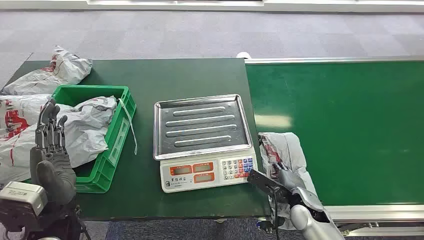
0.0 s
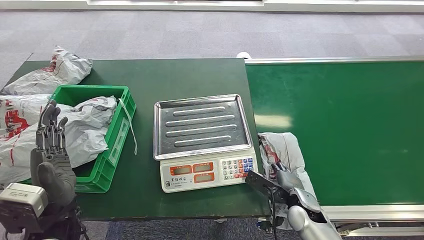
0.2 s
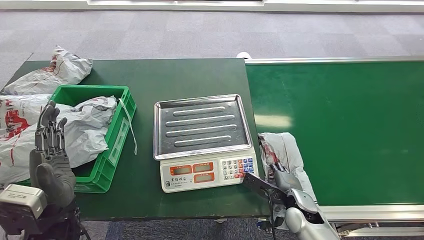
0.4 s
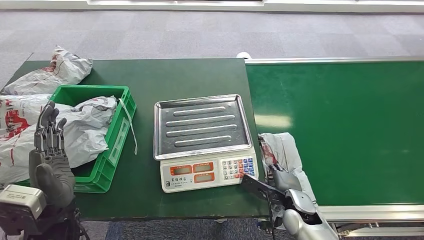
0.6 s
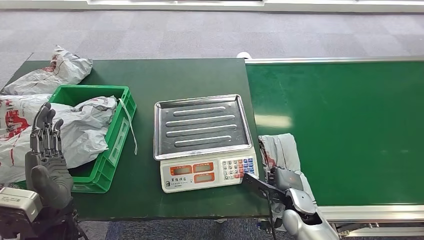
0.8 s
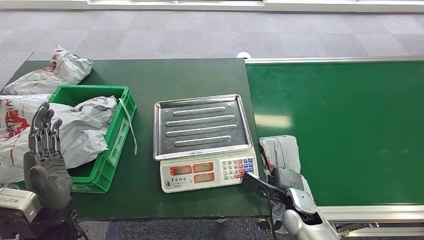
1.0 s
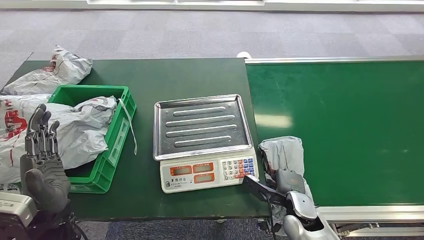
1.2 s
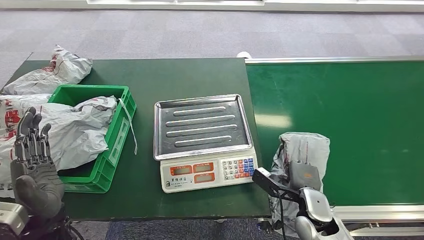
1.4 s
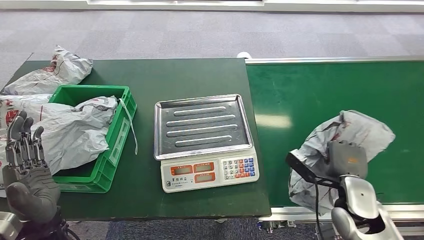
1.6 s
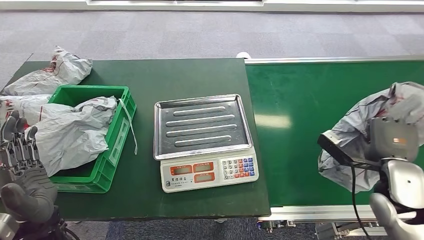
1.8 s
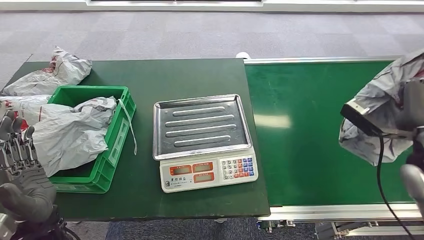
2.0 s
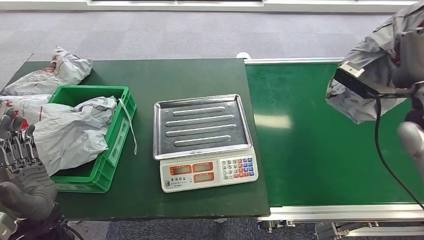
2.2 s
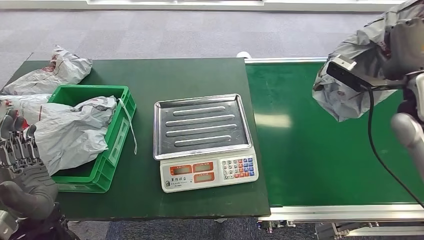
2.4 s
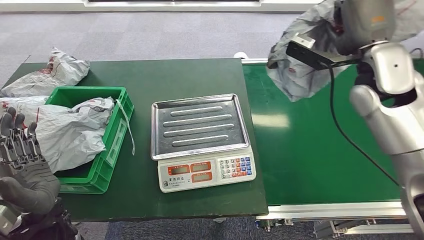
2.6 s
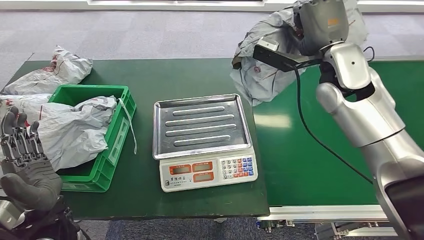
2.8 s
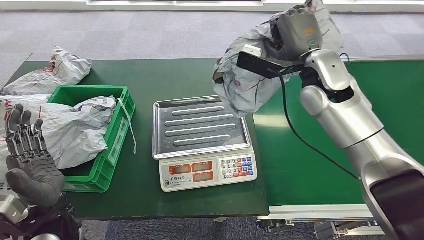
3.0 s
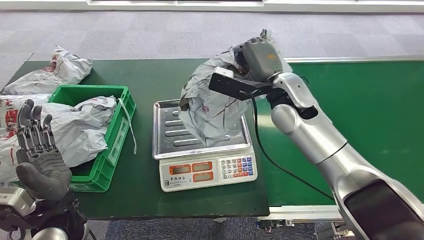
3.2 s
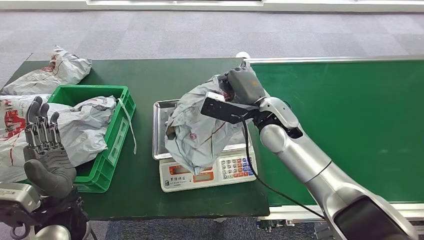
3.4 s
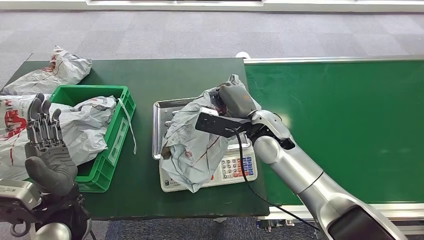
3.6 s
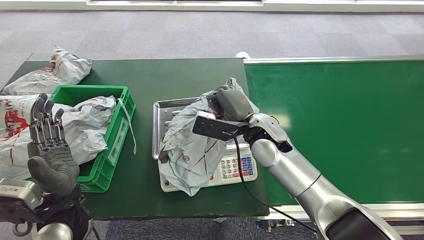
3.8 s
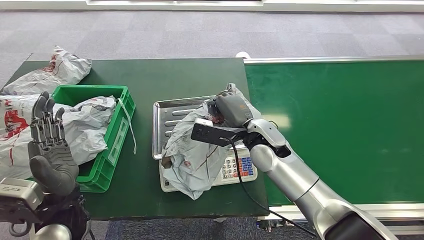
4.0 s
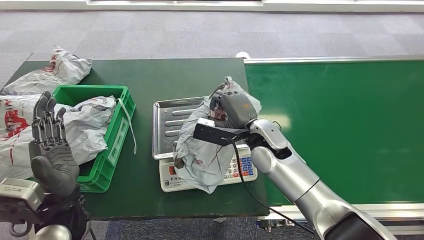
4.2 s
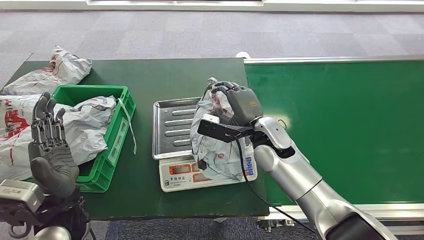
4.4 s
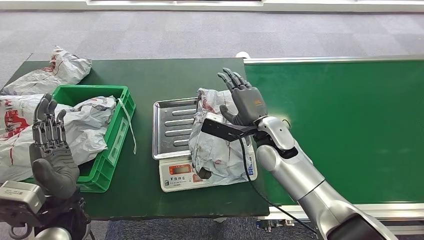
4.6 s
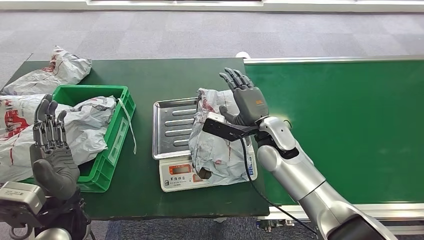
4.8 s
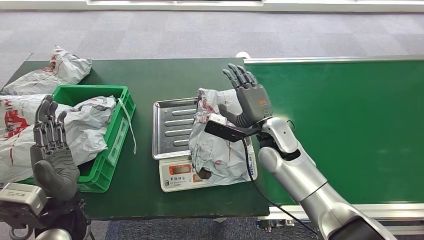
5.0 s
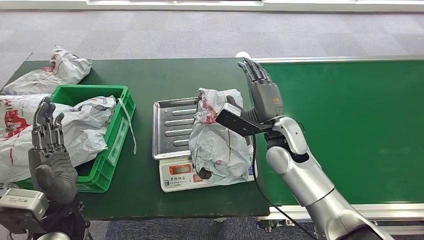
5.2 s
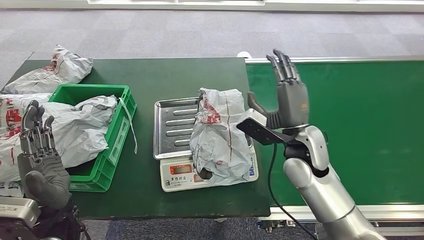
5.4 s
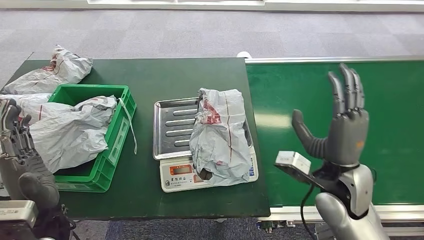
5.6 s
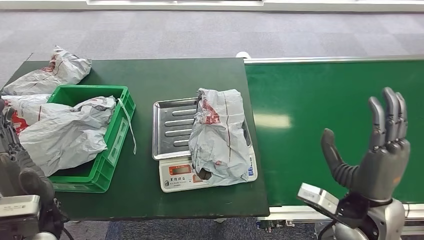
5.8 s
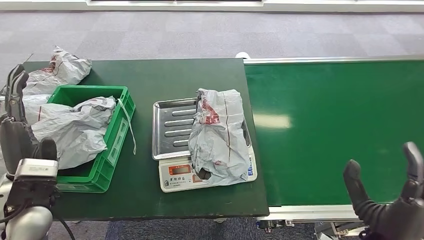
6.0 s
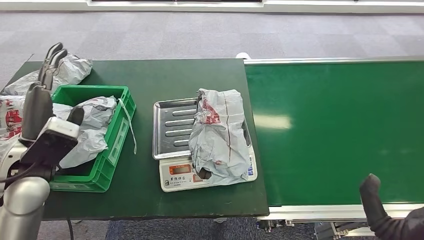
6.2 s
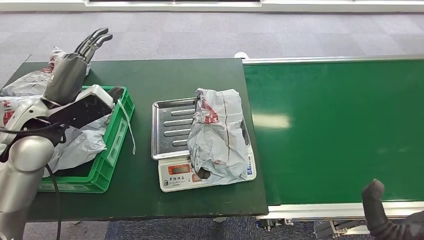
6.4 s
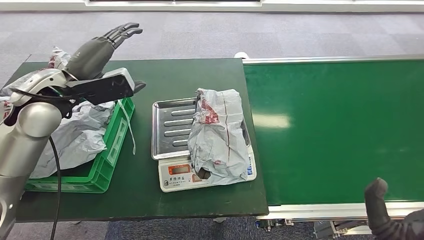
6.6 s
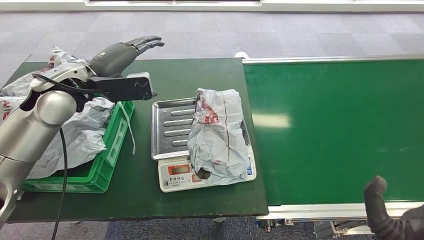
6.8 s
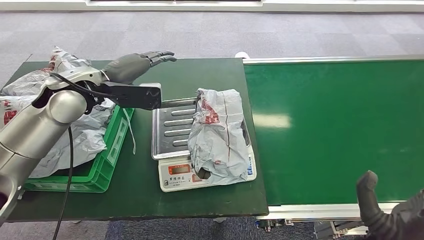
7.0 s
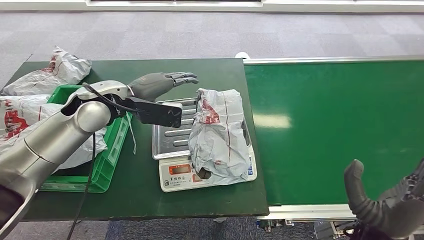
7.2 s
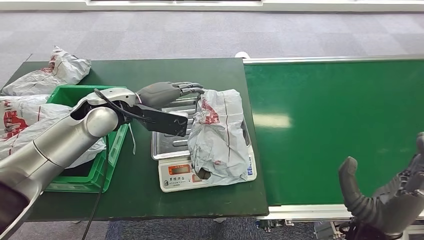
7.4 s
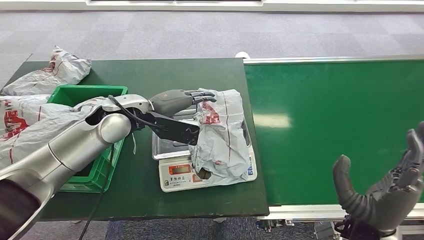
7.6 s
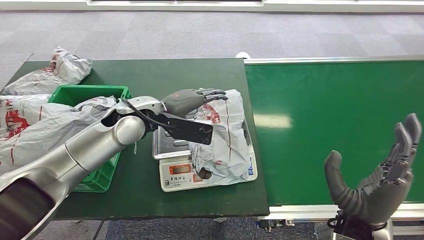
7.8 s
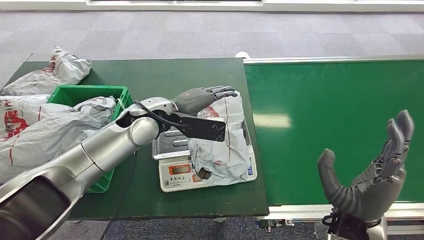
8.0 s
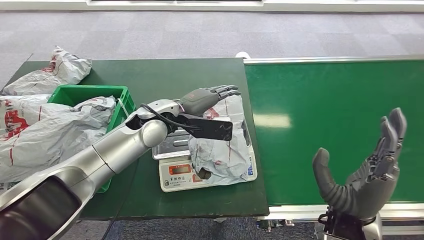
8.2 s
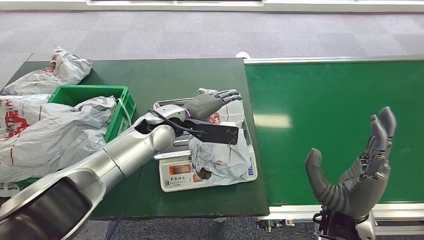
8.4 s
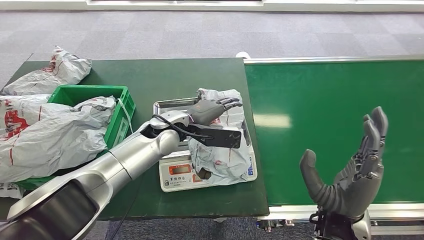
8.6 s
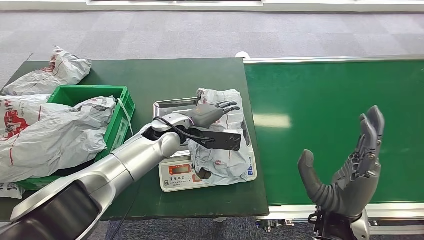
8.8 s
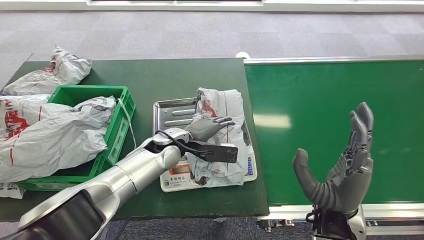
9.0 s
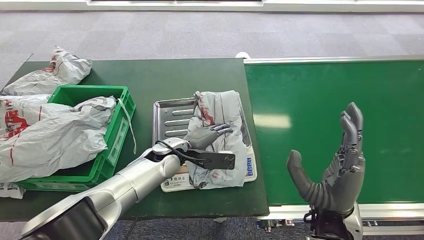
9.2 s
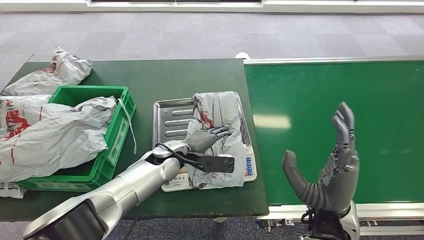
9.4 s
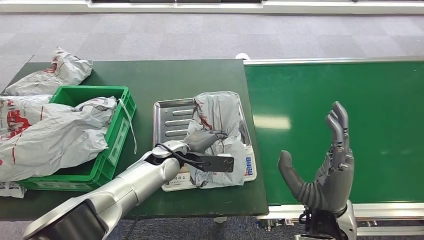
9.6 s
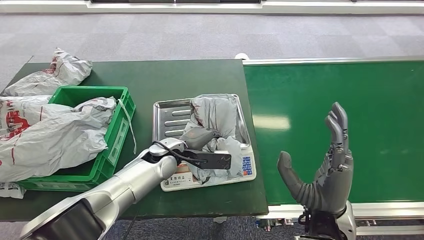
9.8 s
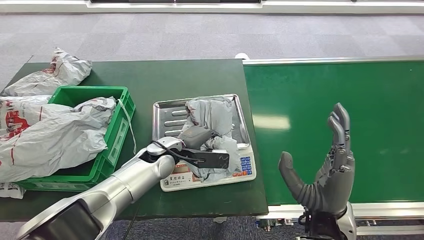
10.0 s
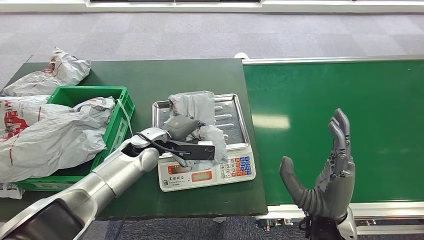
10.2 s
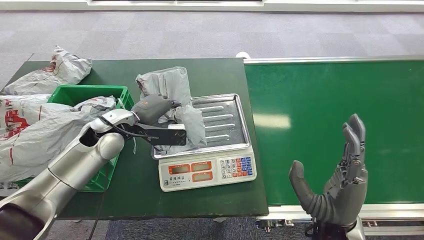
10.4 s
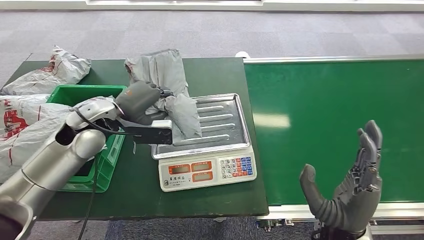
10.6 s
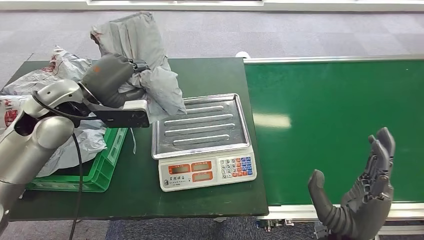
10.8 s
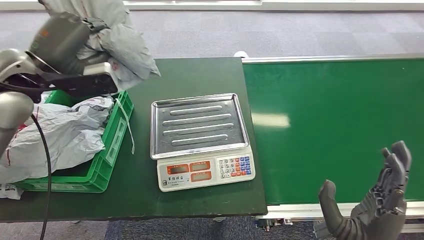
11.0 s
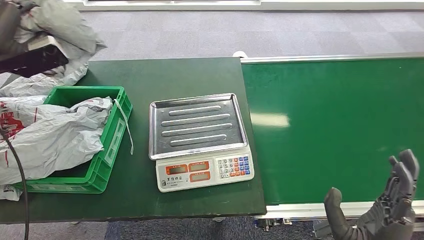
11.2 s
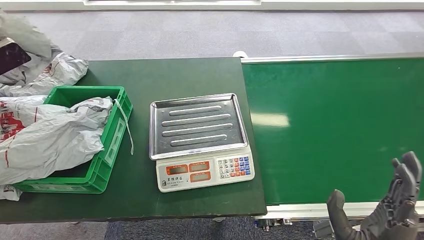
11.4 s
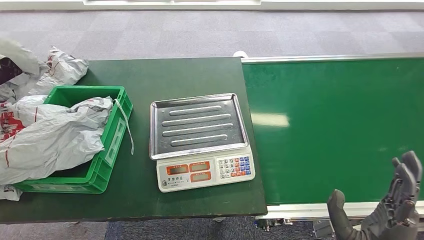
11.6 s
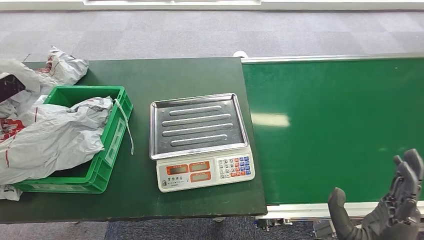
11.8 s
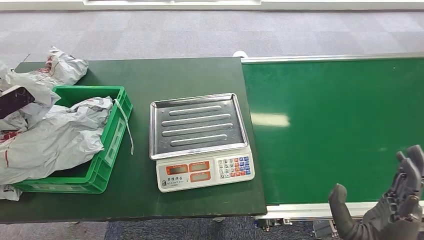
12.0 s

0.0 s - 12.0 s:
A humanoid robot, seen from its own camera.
Step, 0.0 s - 2.2 s: Pick up the package from the conveyor belt.
Step, 2.4 s - 6.4 s: Place the package onto the inbound machine.
Step, 6.8 s - 11.2 s: Pick up the package from the inbound machine.
6.0 s - 7.6 s: The left hand is displaced forward and to the right by roughly 20 cm.

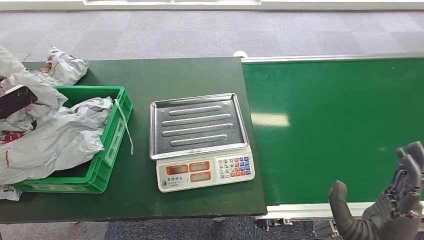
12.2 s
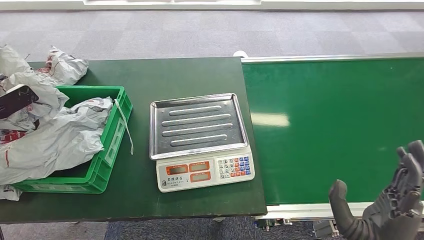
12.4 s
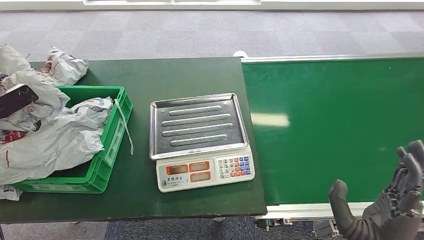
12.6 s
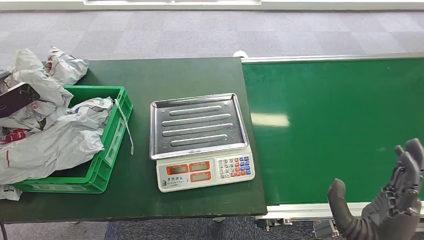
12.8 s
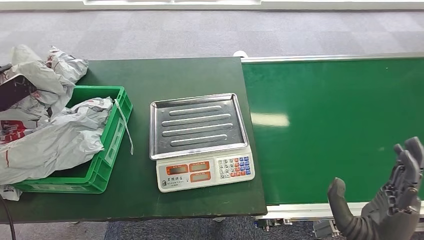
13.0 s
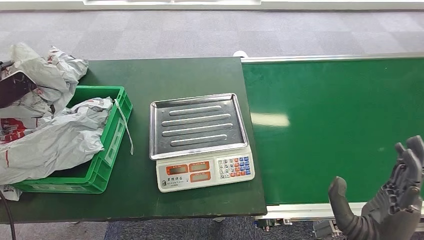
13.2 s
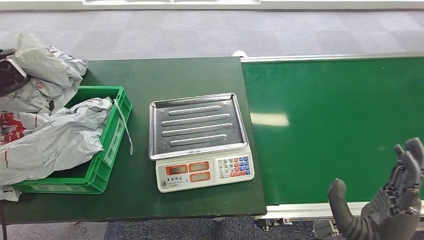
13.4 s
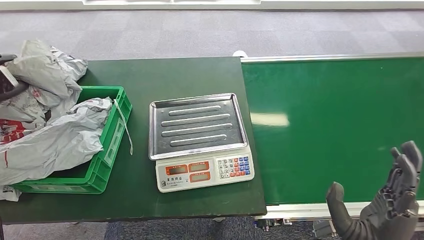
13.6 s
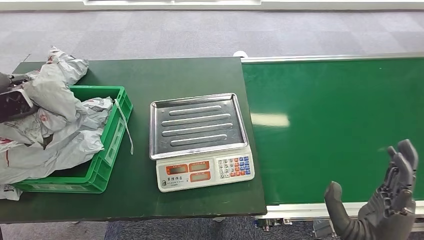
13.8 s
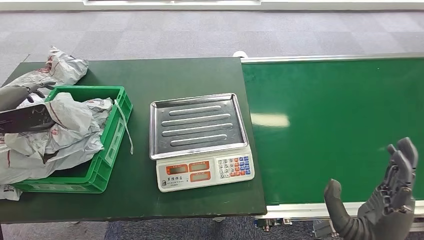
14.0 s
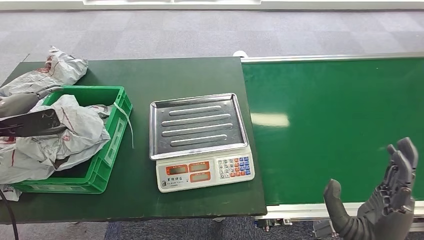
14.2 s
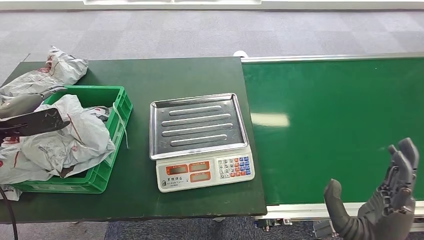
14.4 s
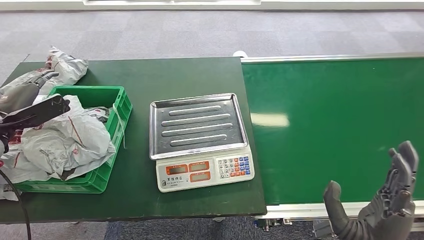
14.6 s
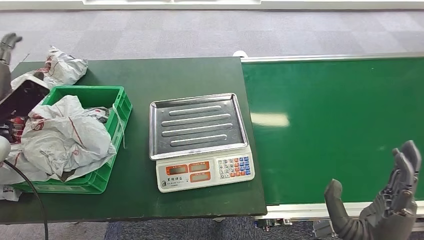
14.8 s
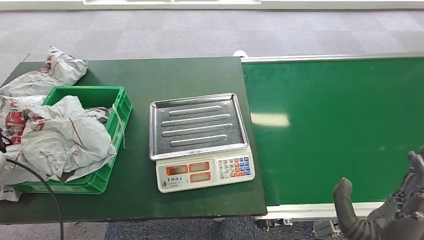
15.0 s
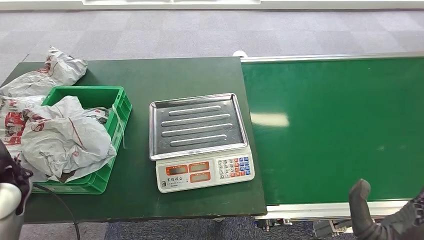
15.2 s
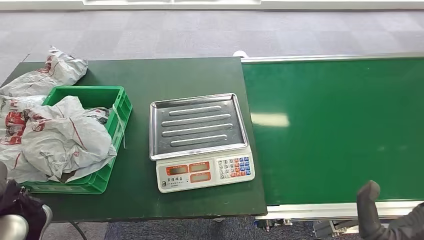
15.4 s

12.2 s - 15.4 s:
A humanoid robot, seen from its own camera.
Step, 12.2 s - 15.2 s: Place the package into the parcel locker.
12.2 s - 13.8 s: The left hand travels upward by roughly 5 cm.
13.8 s - 15.4 s: The left hand is displaced to the right, downward and backward by roughly 25 cm.
